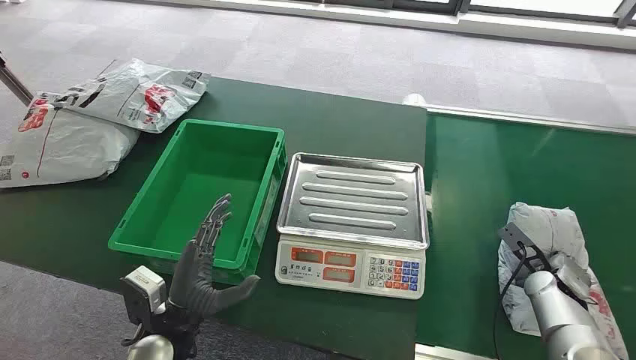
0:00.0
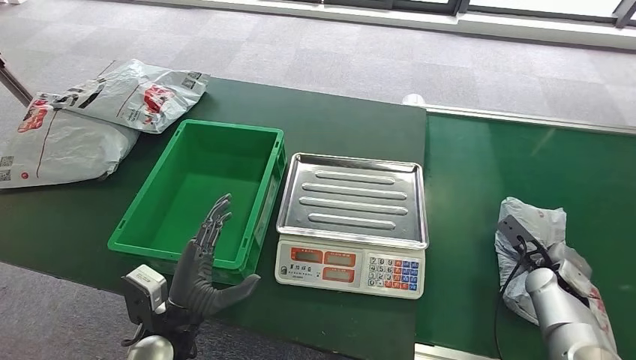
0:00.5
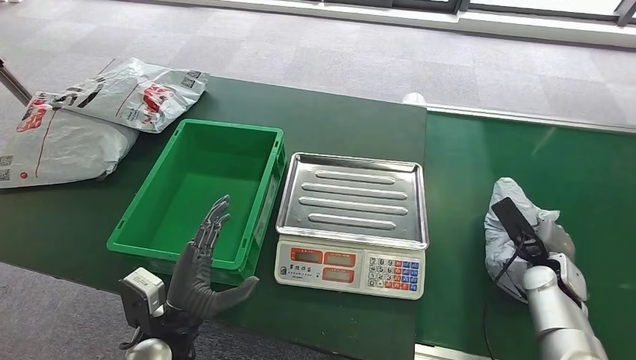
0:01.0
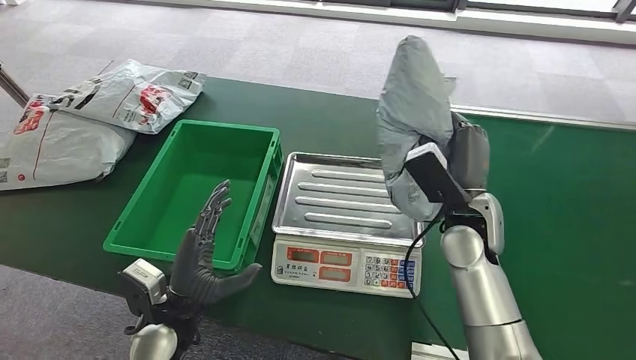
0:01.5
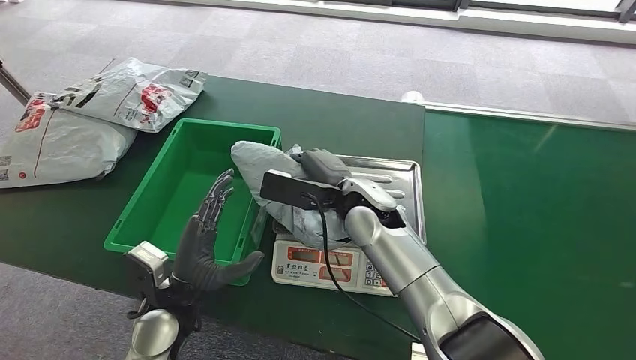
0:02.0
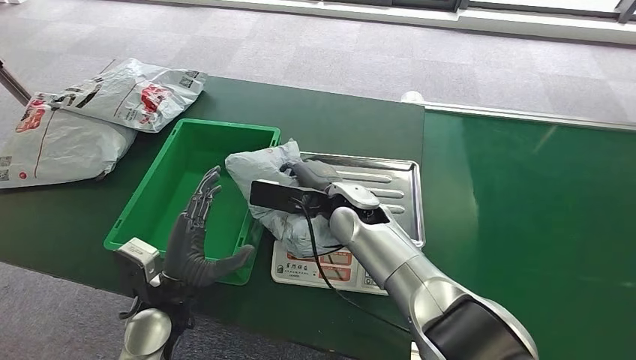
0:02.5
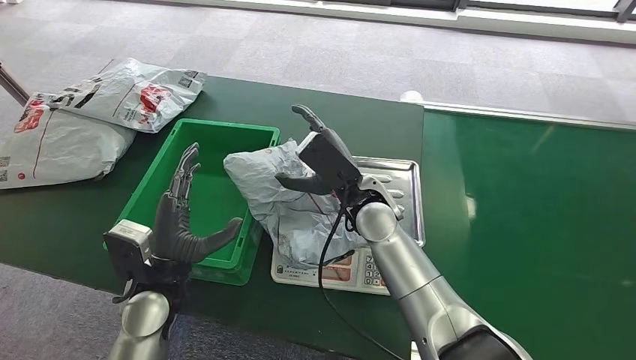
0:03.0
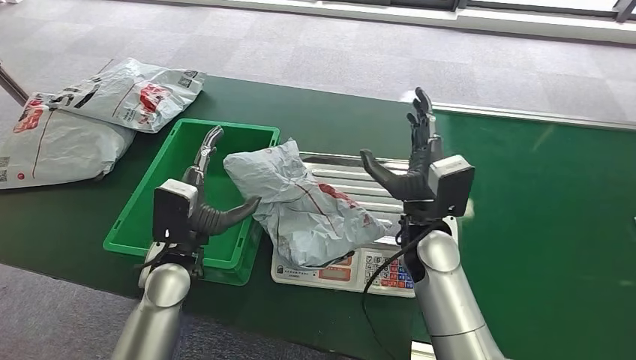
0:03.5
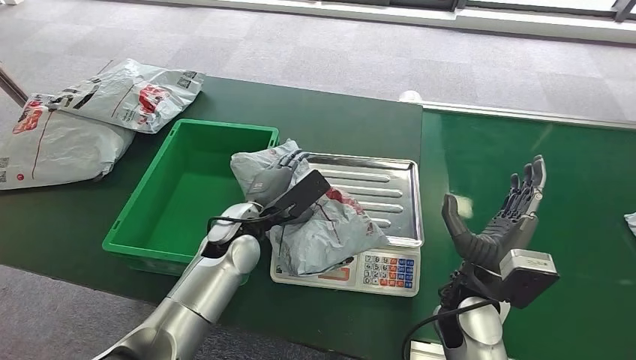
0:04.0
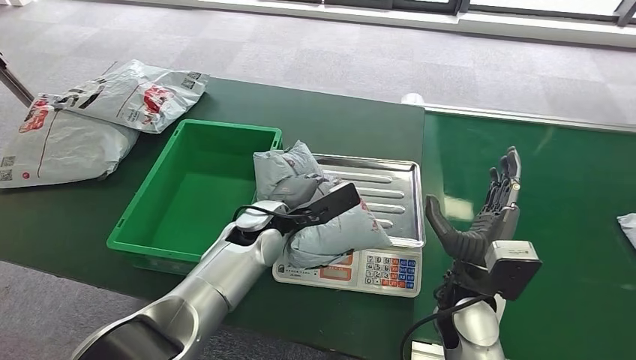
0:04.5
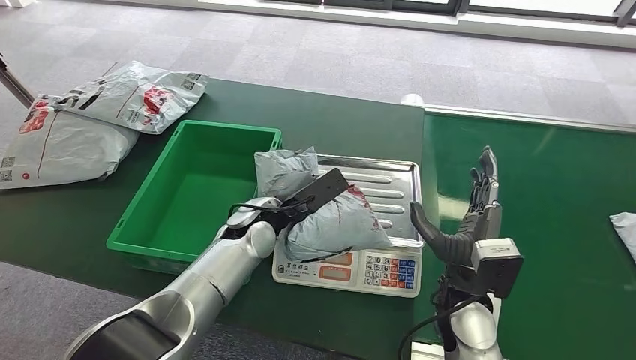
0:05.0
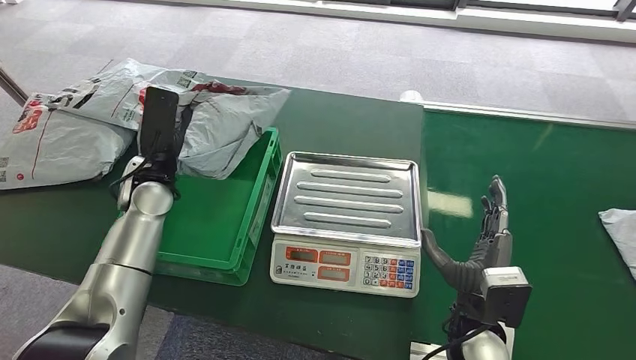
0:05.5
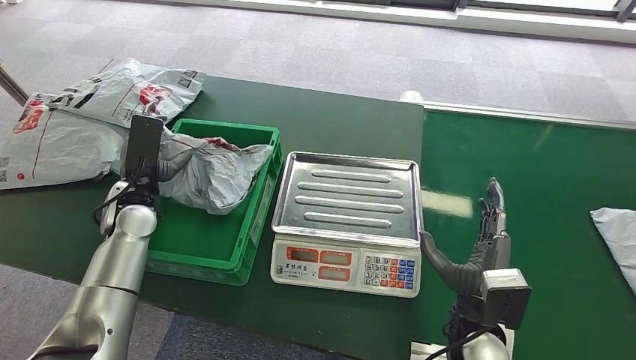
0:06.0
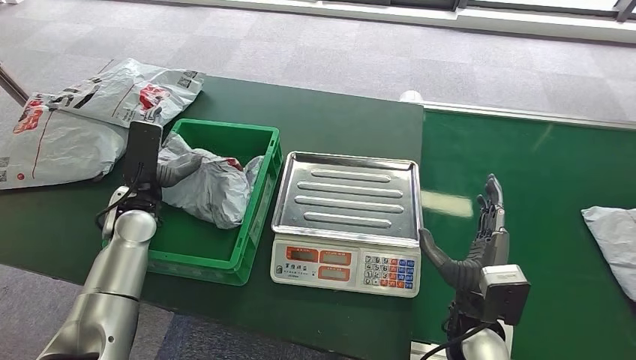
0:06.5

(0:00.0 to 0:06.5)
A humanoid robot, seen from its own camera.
Step, 0:00.0 - 0:01.0: Pick up the package from the conveyor belt.
Step, 0:01.5 - 0:02.5: Place the package onto the inbound machine.
Step, 0:03.0 - 0:05.5: Pick up the package from the inbound machine.
Step, 0:06.0 - 0:06.5: Place the package into the parcel locker.
